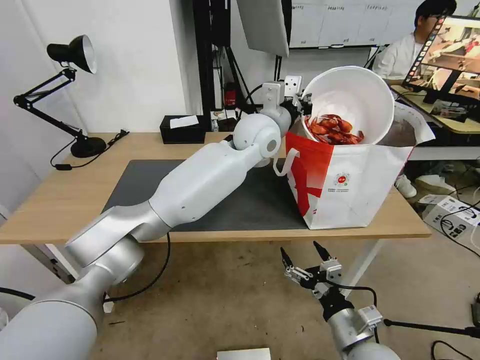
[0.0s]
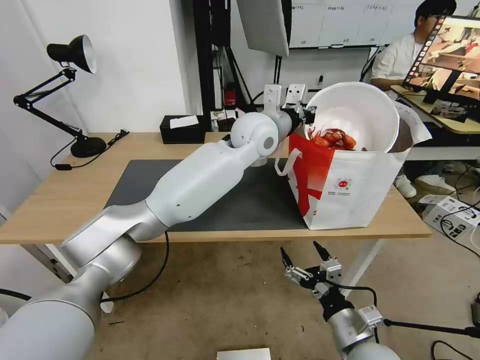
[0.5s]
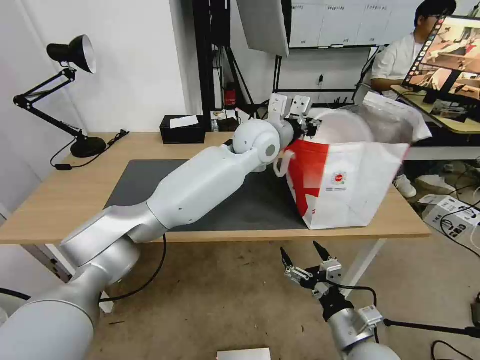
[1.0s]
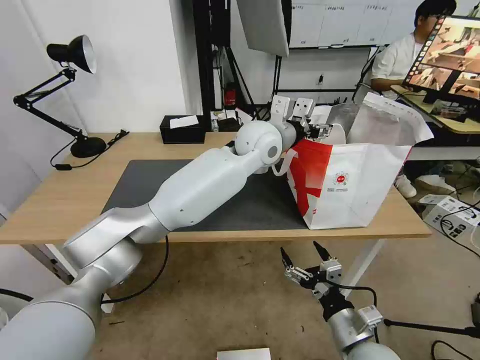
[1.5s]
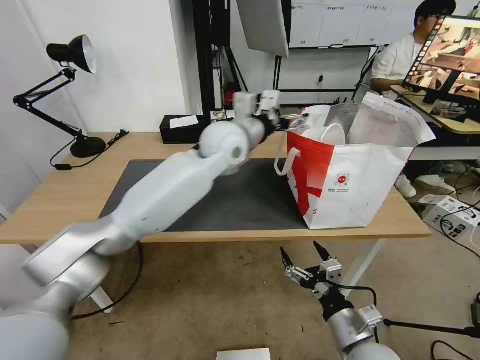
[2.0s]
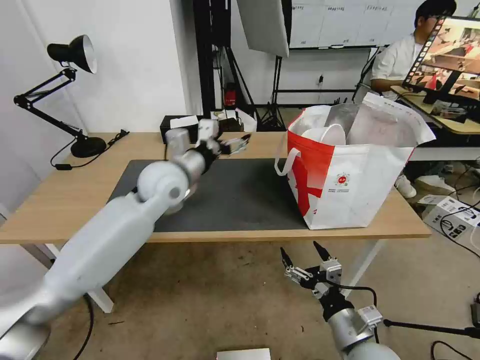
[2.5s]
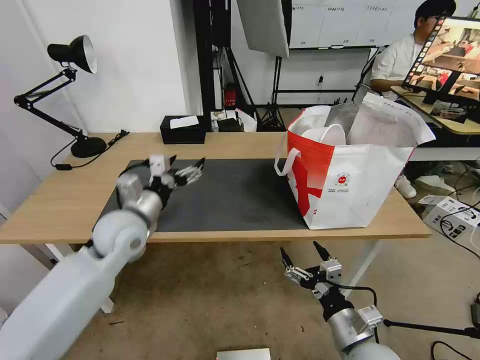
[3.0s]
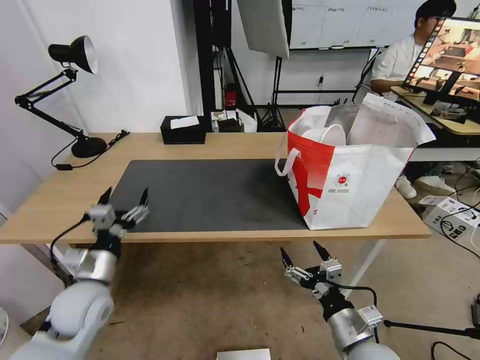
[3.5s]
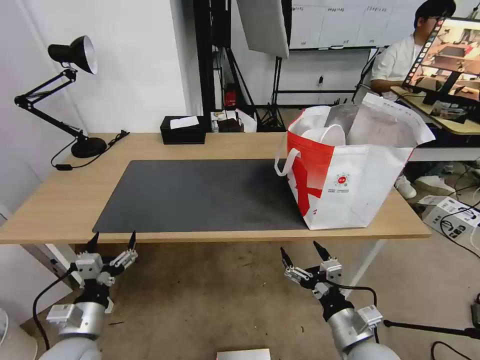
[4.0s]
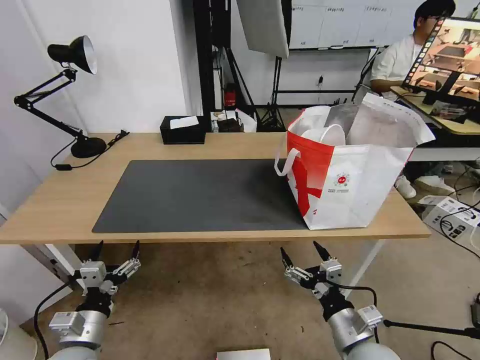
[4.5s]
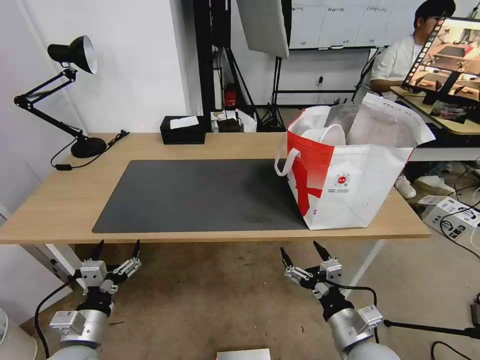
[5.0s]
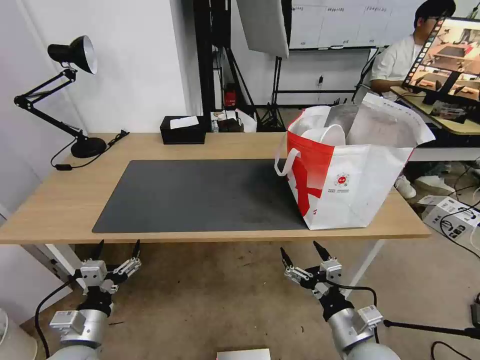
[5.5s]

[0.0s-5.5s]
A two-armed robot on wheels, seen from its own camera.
Task of the whole recording: Pick up the trash from the table and place it into the takeout bag.
0.0s to 2.0s: The left gripper shifts roughly 5 cm to the left, and opens its fingers.
2.0s to 3.5s: The left gripper heads to the left, backward and downward, covering some 40 cm.
3.5s to 5.5s: The left gripper shifts roughly 15 cm backward and downward.

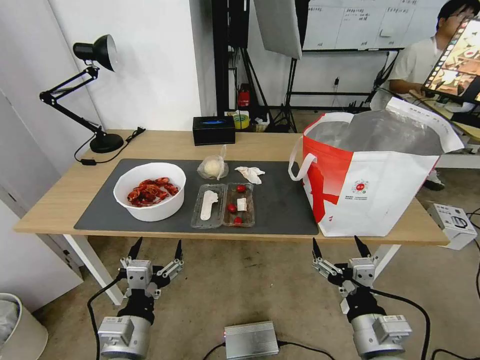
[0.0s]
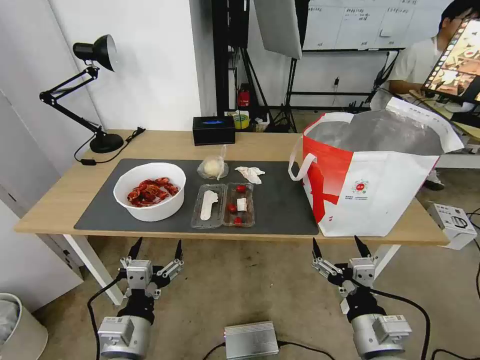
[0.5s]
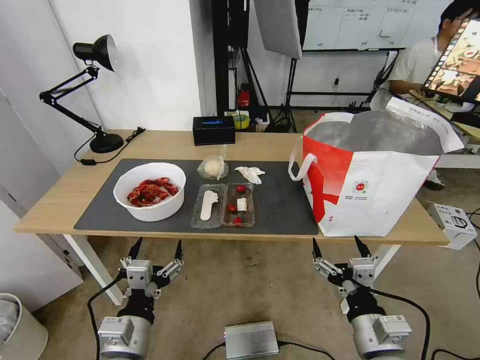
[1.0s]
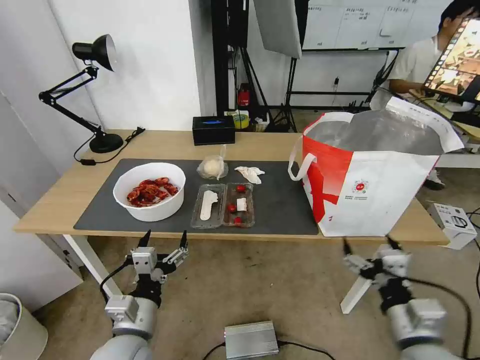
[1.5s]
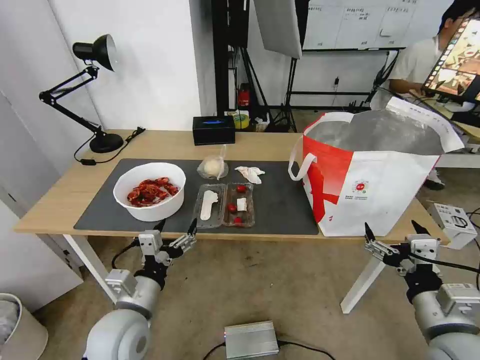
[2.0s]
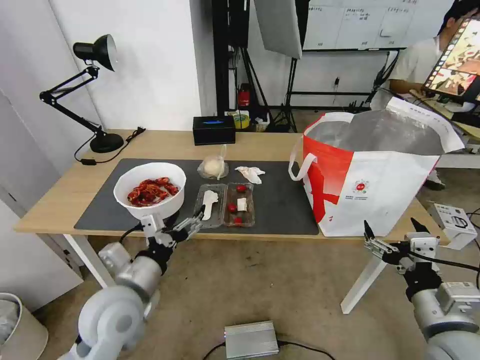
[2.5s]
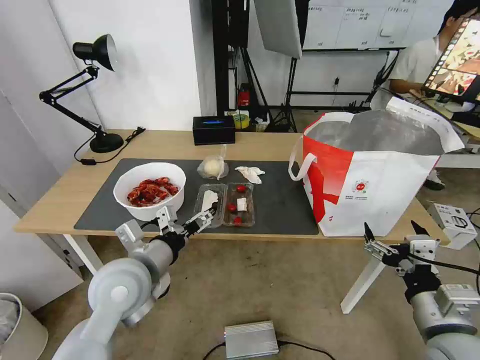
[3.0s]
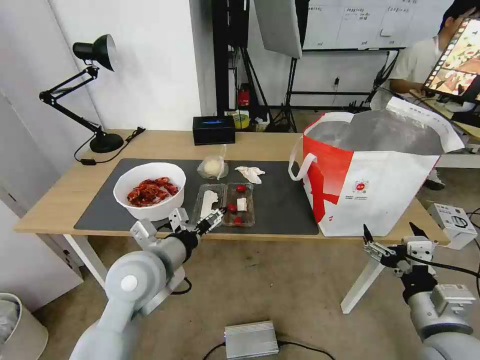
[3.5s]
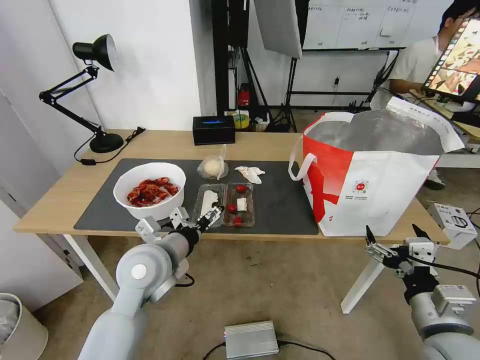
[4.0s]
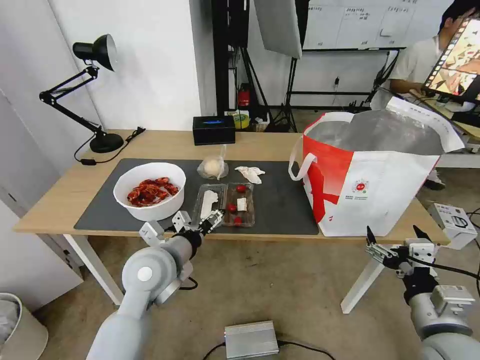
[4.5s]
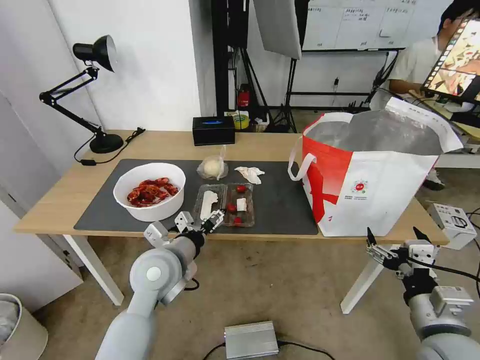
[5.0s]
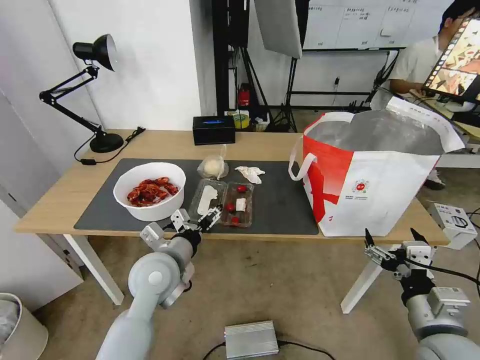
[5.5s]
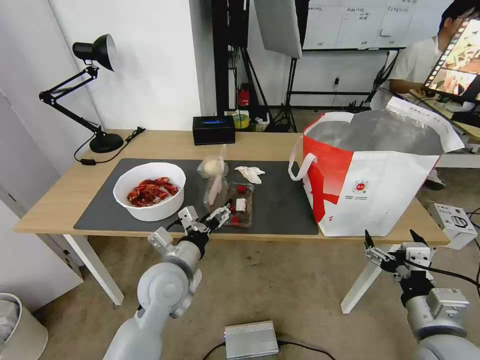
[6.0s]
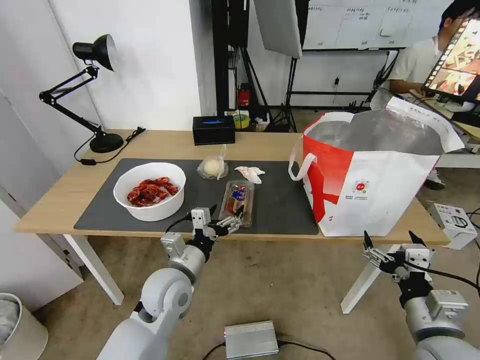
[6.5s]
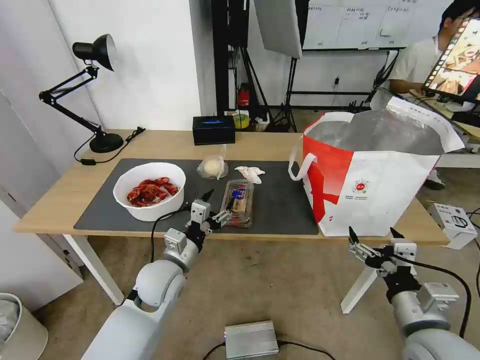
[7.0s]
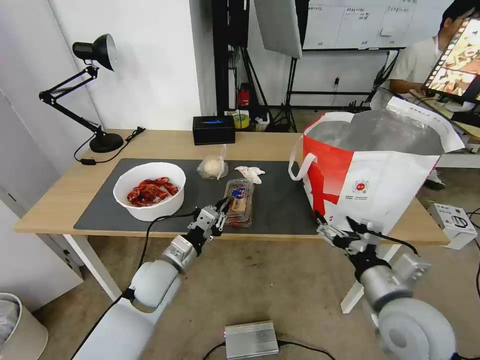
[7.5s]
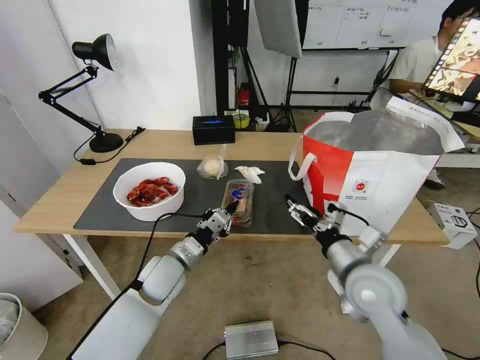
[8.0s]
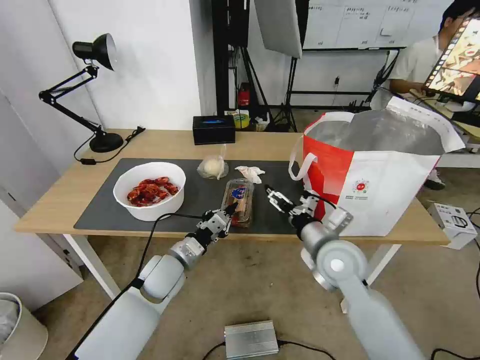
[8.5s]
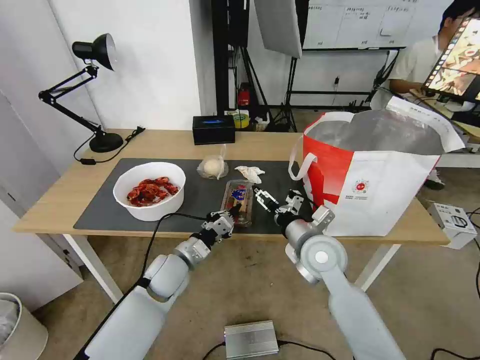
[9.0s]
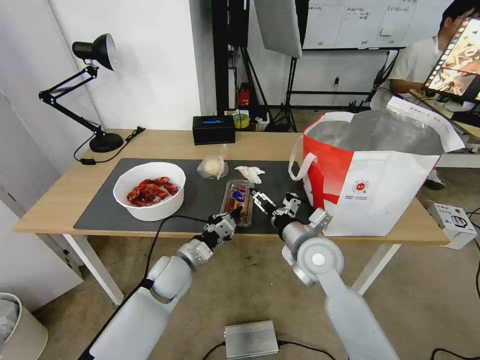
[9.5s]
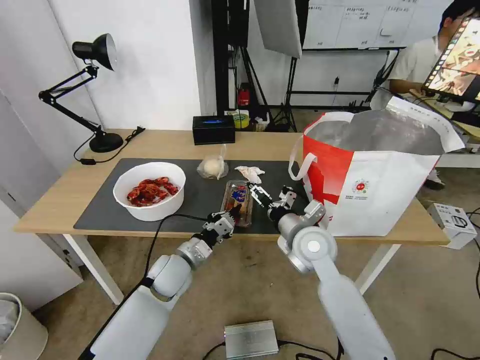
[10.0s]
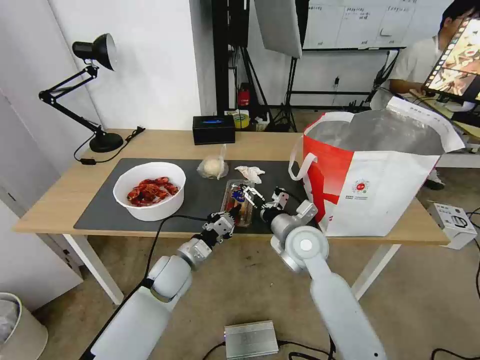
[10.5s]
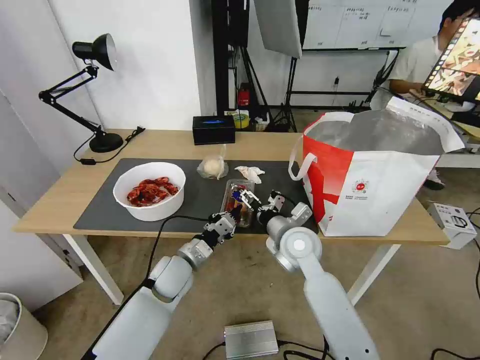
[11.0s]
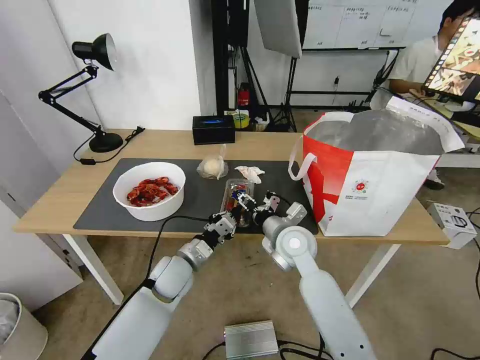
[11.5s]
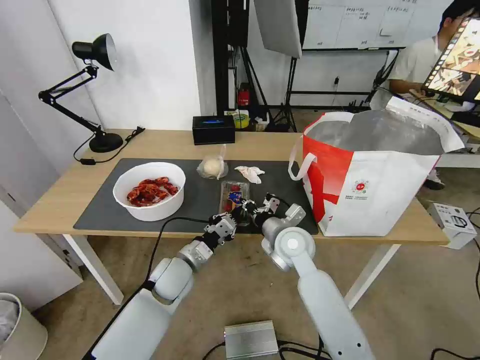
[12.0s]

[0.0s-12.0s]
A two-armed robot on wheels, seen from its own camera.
Task of the whole recording: Pick up the trash from the table and place it into the takeout bag.
2.0s to 4.0s: The left gripper travels forward and upward by roughly 10 cm.
4.0s to 6.0s: The left gripper is displaced downward by about 5 cm.
6.0s to 8.0s: The right gripper is displaced forward and to the left by approximately 15 cm; the left gripper moves downward, roughly 5 cm, and closes its fingers.
8.0s to 10.0s: The right gripper heads forward and to the left, covering some 15 cm.
10.0s to 12.0s: The right gripper ends up approximately 5 cm from where it was, and closes.

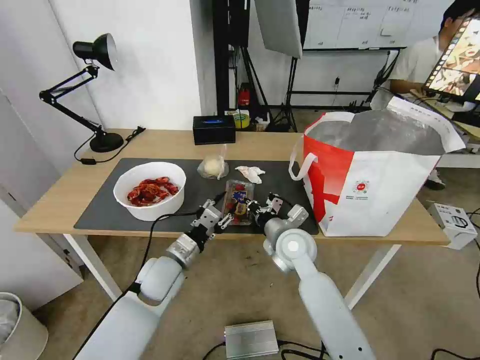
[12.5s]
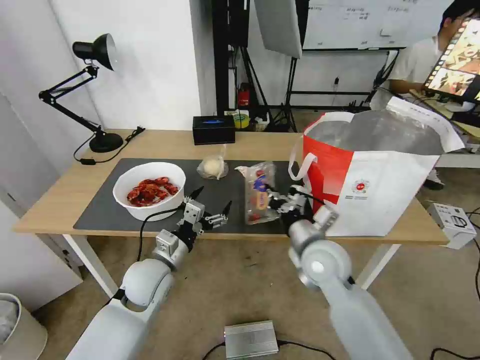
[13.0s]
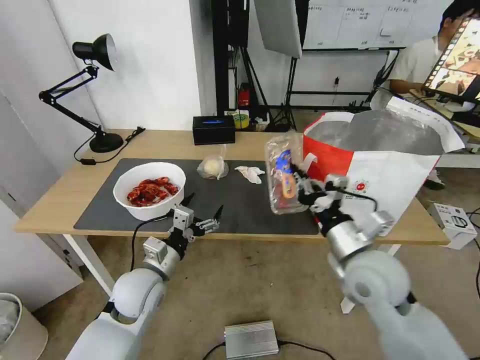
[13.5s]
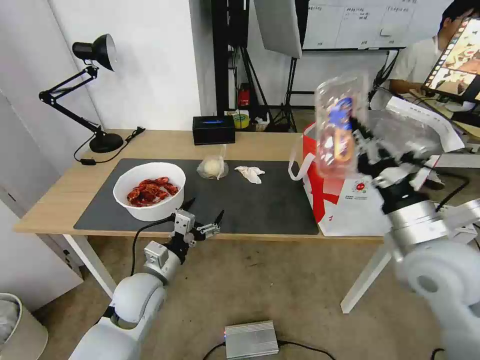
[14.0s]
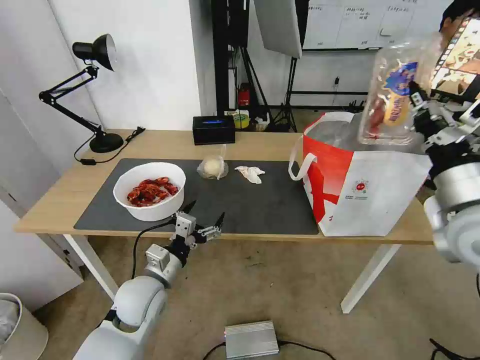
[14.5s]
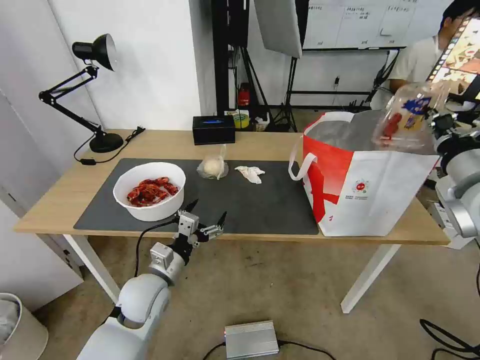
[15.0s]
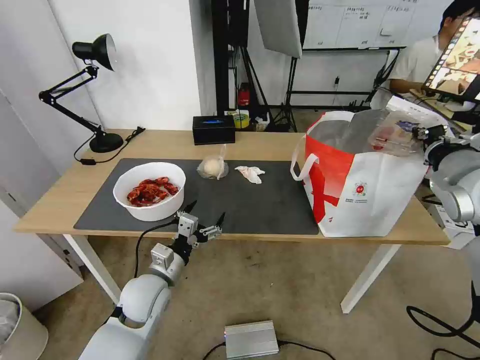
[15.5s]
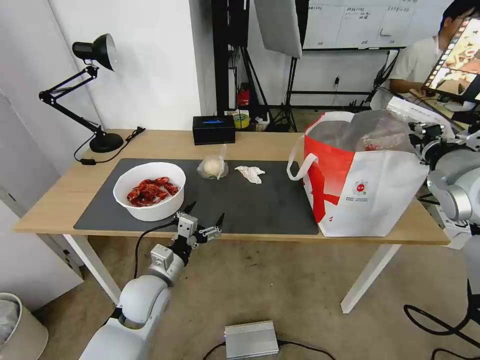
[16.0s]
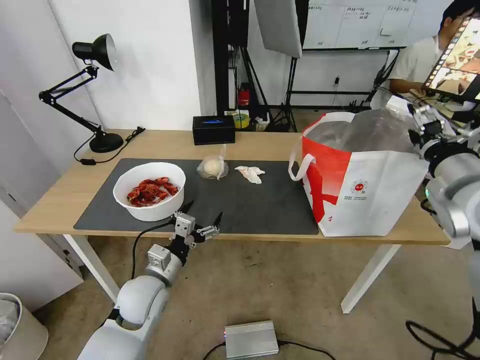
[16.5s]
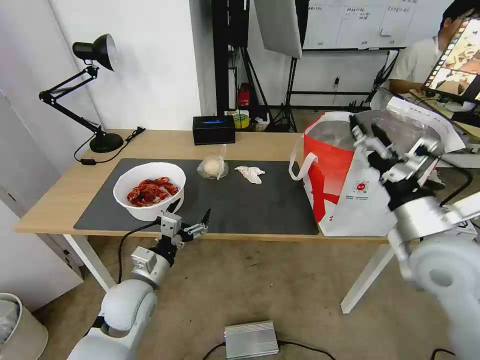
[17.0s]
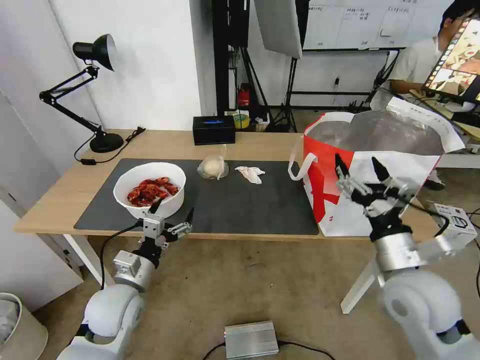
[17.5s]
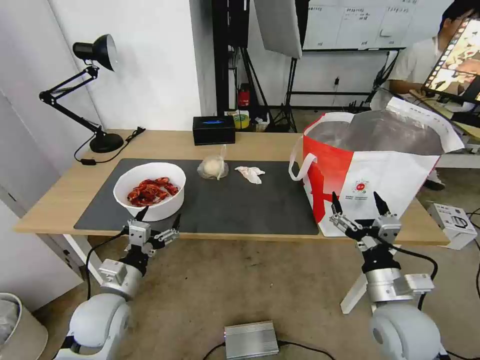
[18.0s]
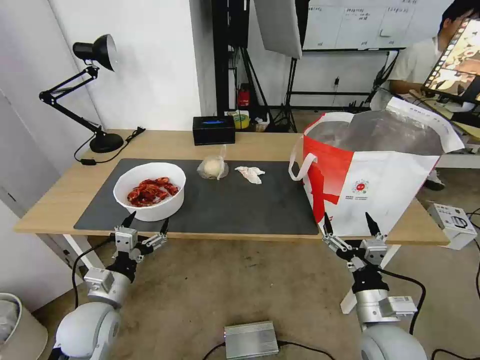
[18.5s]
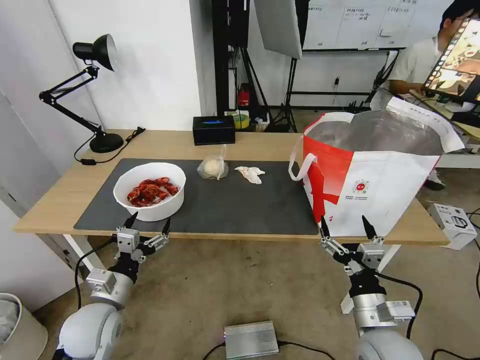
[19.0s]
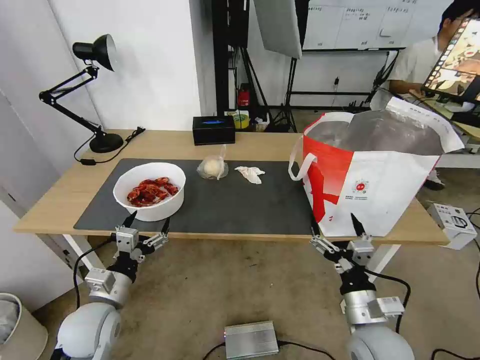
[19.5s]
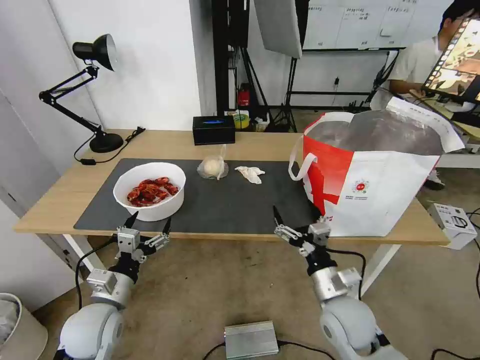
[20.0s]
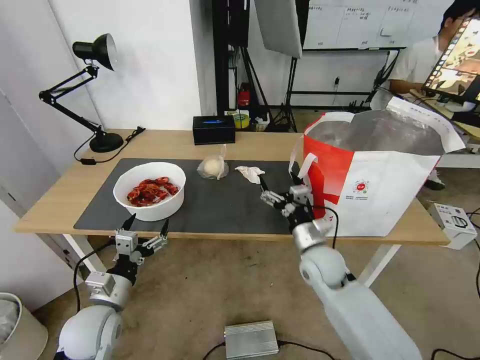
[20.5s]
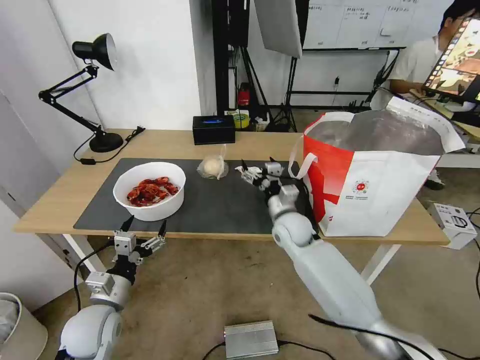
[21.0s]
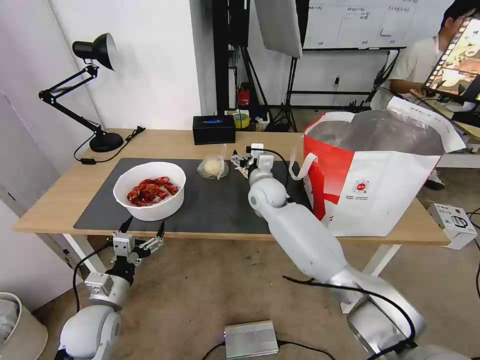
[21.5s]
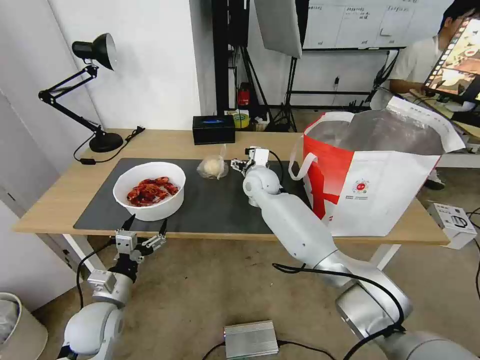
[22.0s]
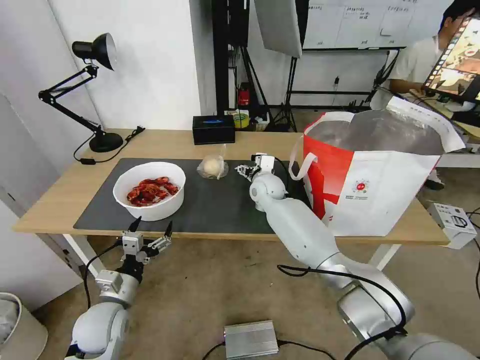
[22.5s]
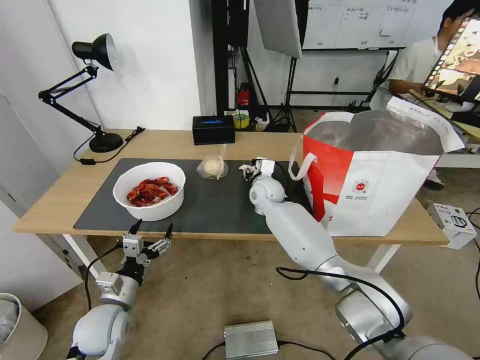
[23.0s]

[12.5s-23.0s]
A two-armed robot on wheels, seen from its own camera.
Task of the whole recording: Pick up the trash from the table and place it into the takeout bag.
12.5s to 14.5s: The left gripper goes some 5 cm backward, and opens, while the right gripper travels to the right, upward and backward by some 30 cm.
14.5s to 16.5s: The right gripper opens up.
16.5s to 19.0s: The right gripper is displaced downward, backward and to the left by roughly 30 cm. Meanwhile the left gripper goes approximately 10 cm to the left and backward.
19.0s to 21.0s: The right gripper travels forward and to the left by roughly 30 cm.
21.0s to 23.0s: The right gripper shifts some 15 cm forward and to the left.
